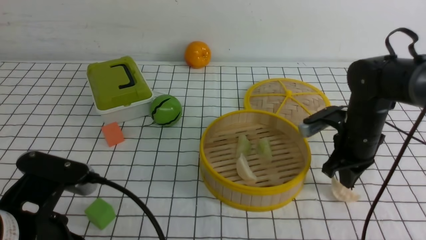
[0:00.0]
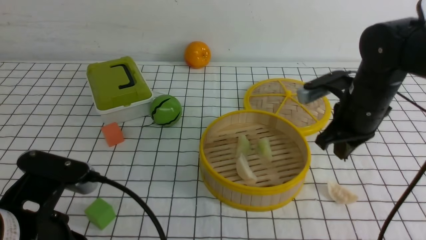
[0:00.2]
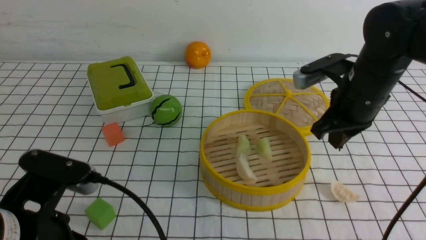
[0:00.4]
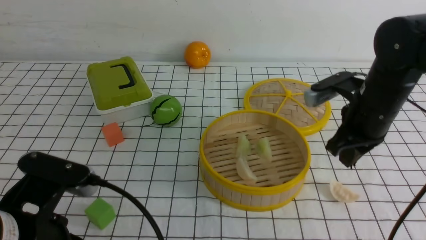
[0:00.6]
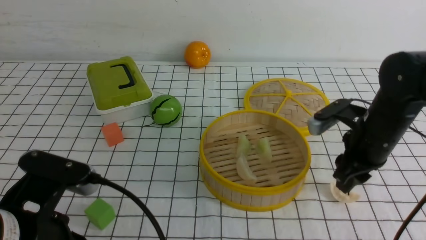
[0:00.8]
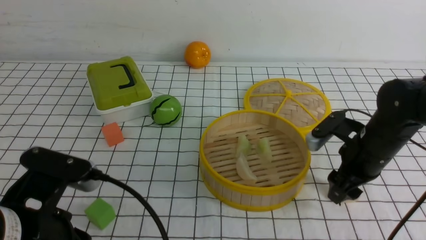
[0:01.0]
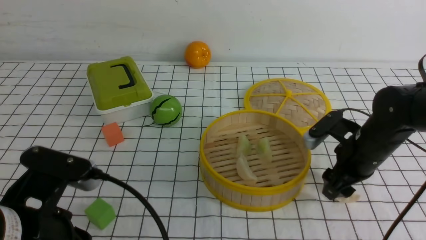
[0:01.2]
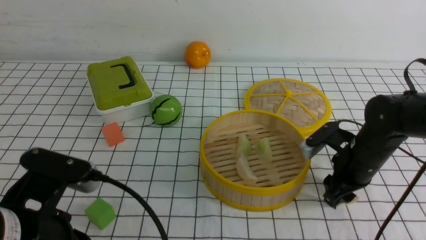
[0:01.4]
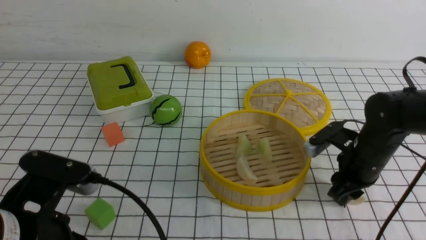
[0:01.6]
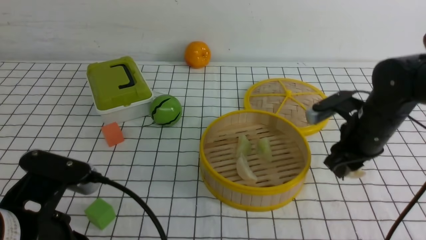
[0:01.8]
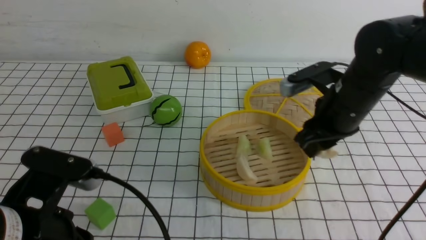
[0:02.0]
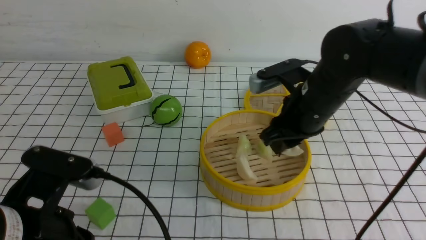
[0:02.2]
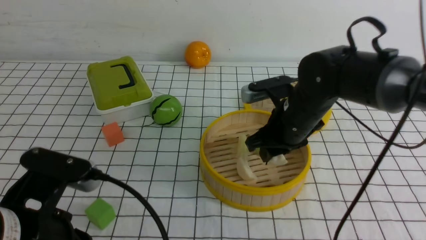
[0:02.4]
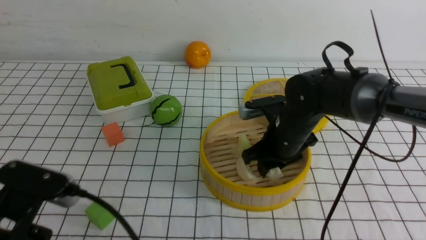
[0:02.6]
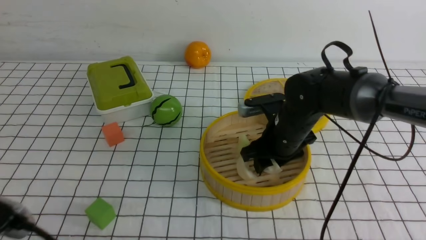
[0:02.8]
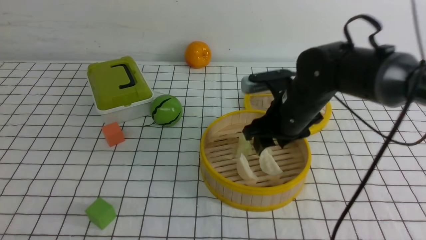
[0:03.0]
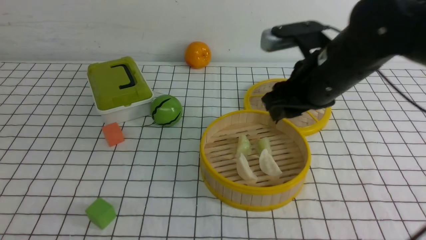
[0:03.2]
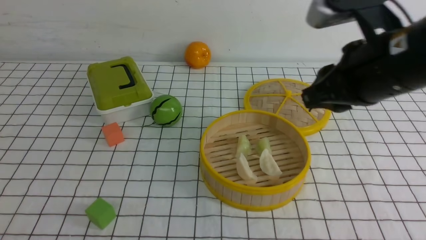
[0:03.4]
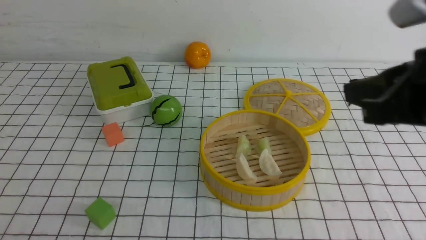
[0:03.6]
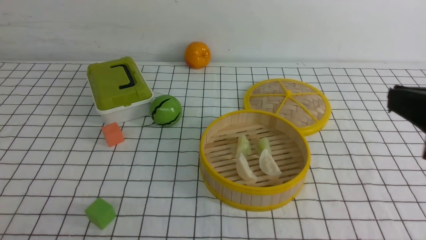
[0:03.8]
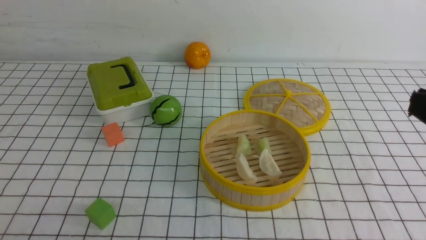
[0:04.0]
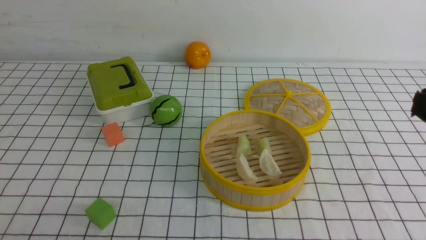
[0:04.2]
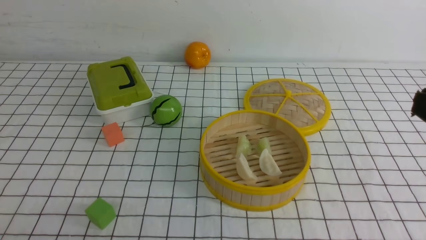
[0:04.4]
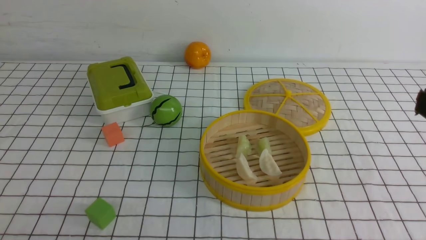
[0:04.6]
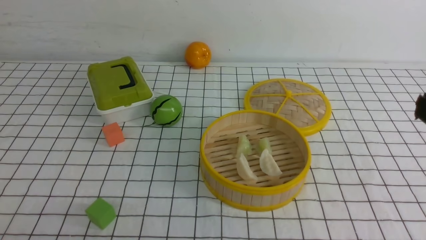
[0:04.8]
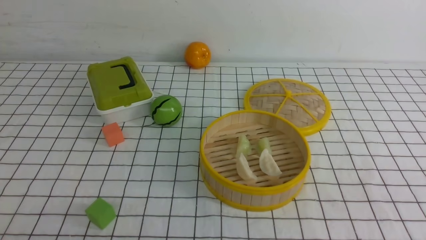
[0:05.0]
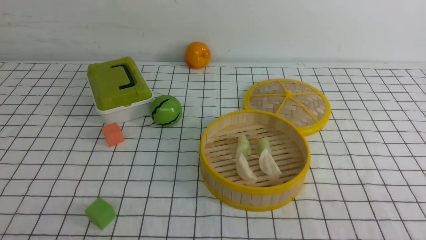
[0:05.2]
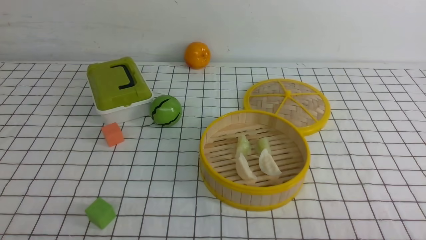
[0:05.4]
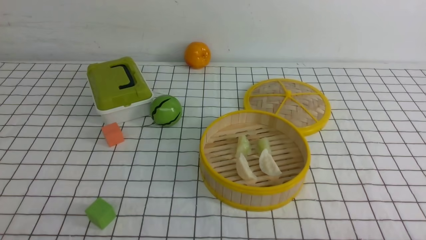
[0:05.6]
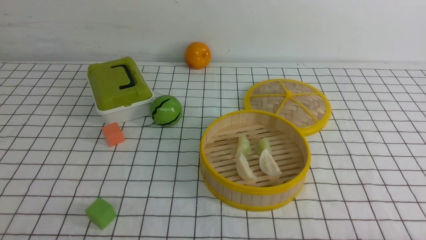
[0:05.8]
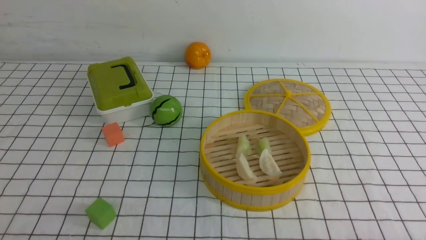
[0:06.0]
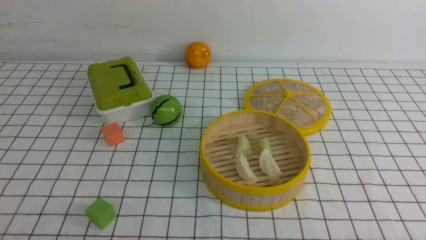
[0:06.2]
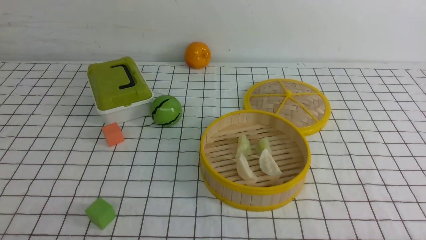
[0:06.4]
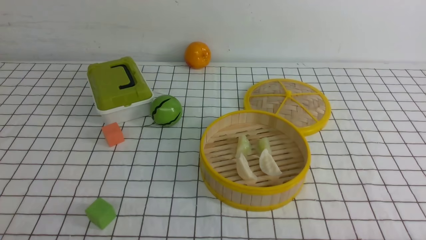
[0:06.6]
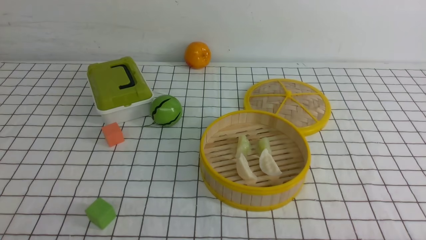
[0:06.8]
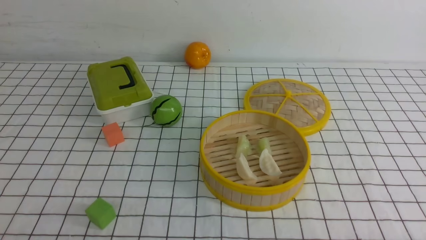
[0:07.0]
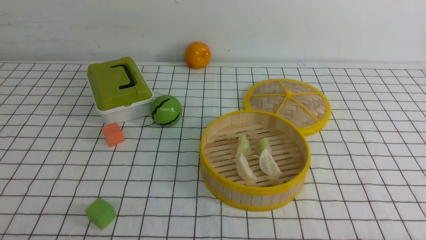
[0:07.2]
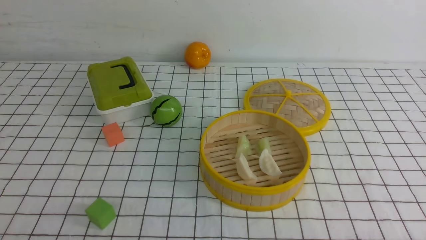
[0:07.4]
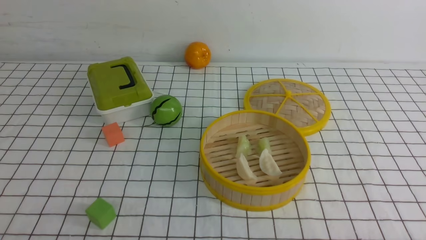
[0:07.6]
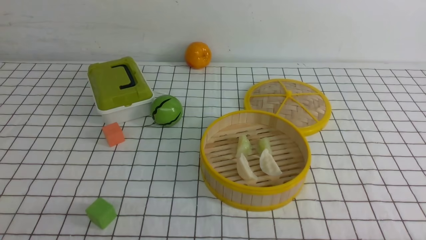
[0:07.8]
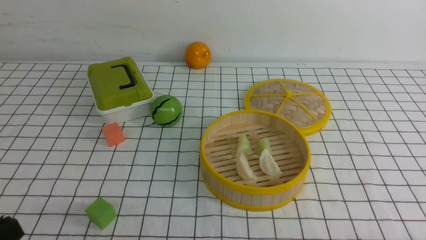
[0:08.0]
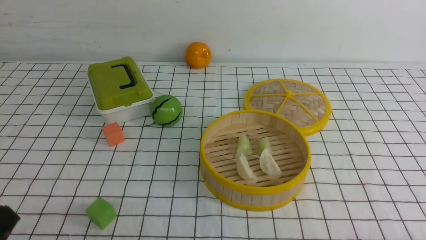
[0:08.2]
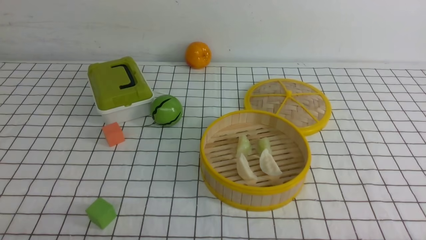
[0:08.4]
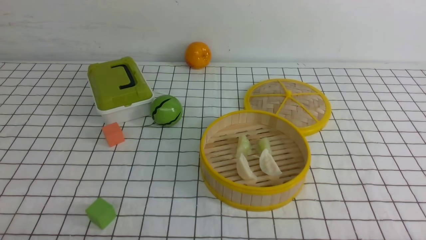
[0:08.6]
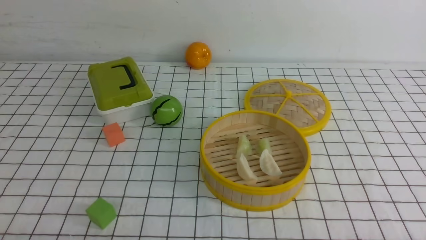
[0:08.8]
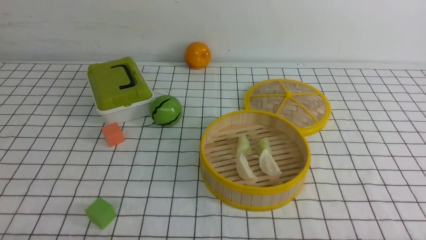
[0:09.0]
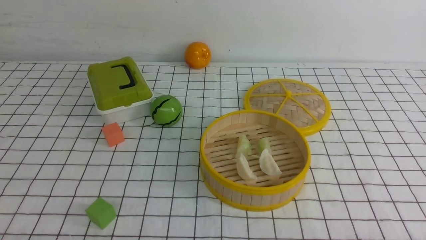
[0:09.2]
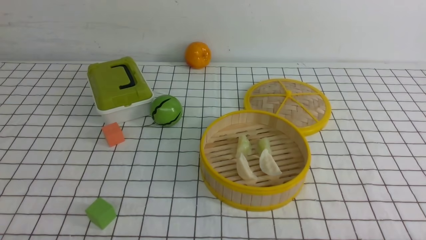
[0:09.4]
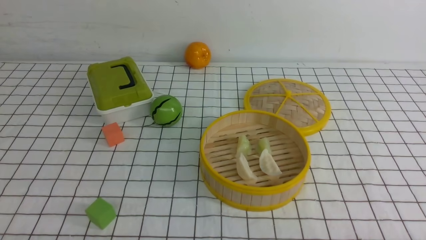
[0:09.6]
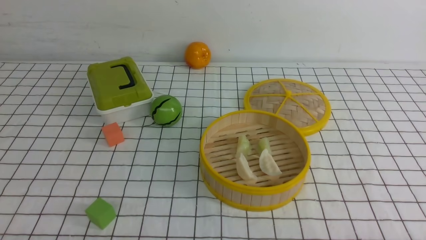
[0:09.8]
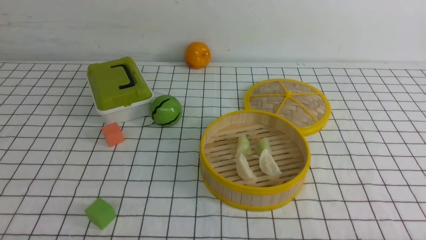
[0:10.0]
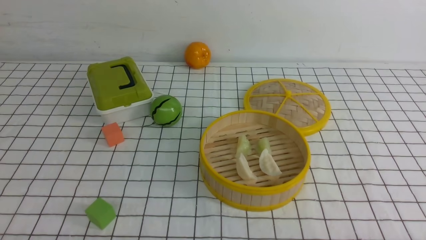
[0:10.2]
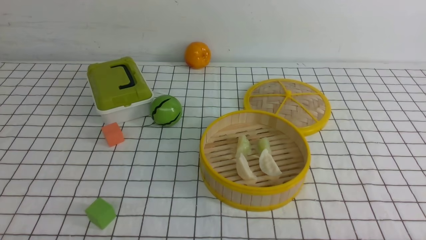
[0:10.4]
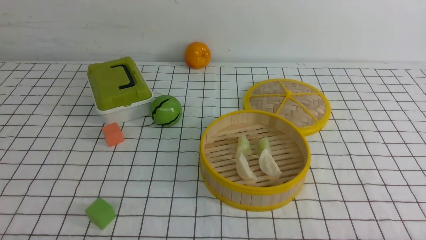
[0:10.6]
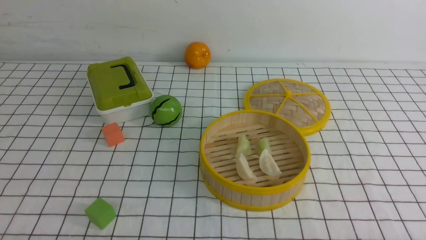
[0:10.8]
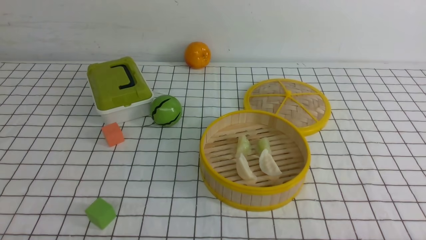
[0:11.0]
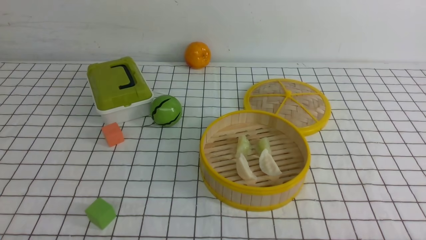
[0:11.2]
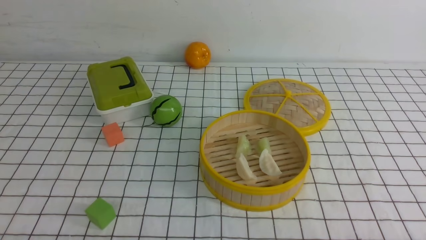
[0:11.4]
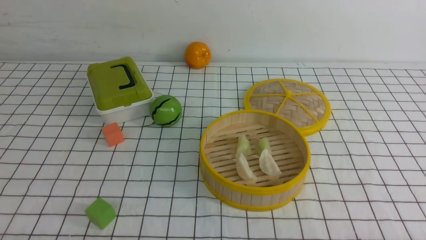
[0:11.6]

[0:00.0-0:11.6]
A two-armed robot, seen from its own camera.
Task of the whole recording: put the dumplings into the steamer on the table with the white tablecloth.
Step, 0:01.6 to 0:03.0: use the right arm to put the dumpling into the steamer.
0:00.0 to 0:01.4: The right gripper reaches roughly 10 cm upward, then returns, and opens its fingers.
0:01.4 to 0:02.8: The right gripper heads to the left, covering some 10 cm.
0:02.8 to 0:04.4: The left gripper goes approximately 10 cm to the left and backward, while the right gripper shifts some 35 cm backward, upward and to the right, and closes its fingers.
0:10.2 to 0:11.6: Both grippers stay put.
